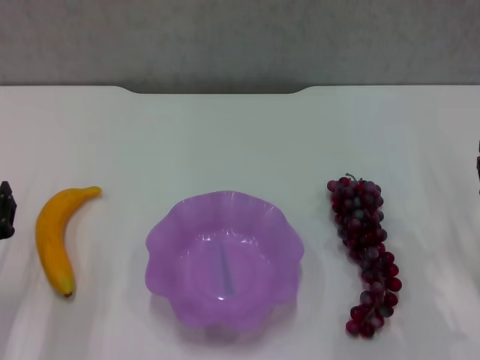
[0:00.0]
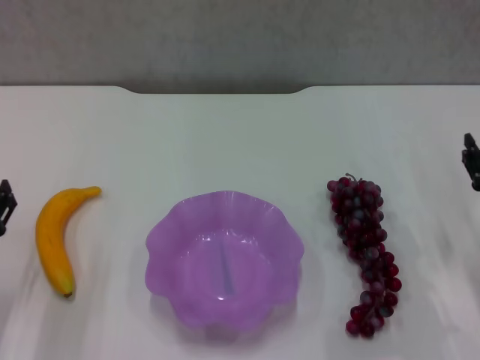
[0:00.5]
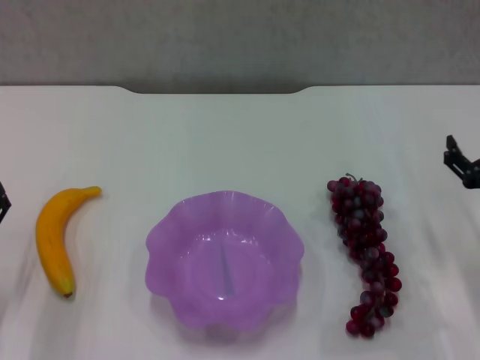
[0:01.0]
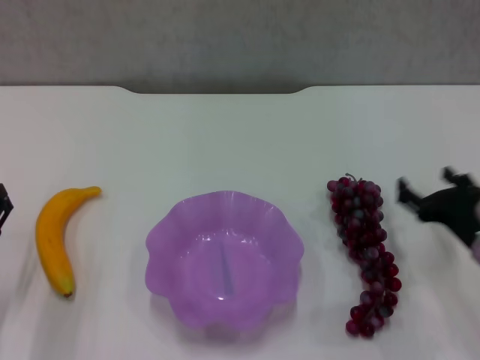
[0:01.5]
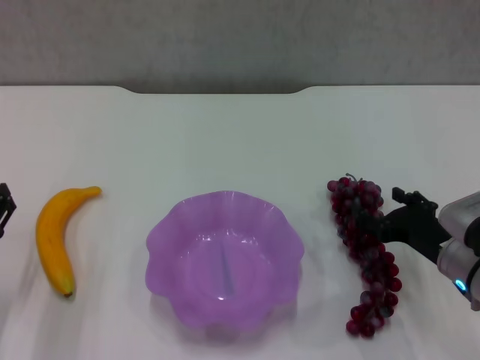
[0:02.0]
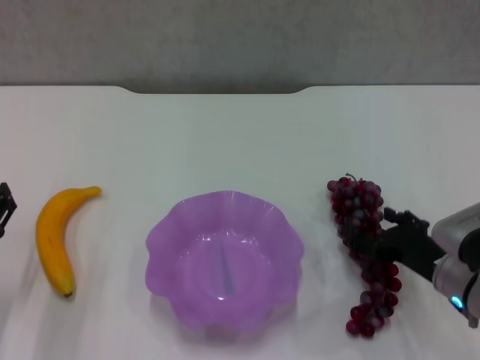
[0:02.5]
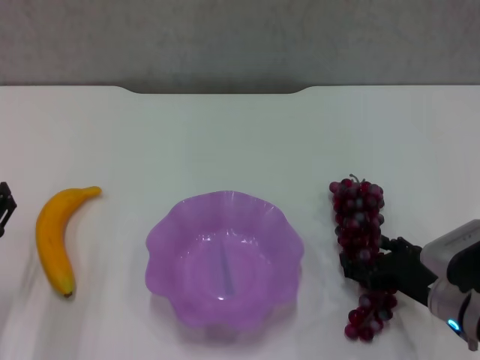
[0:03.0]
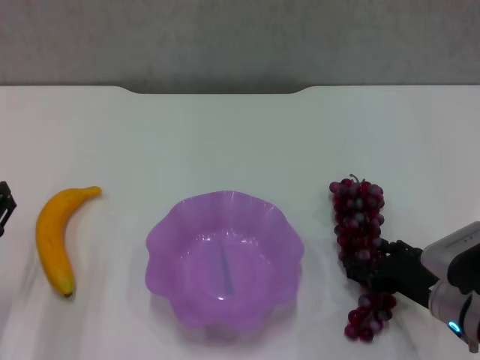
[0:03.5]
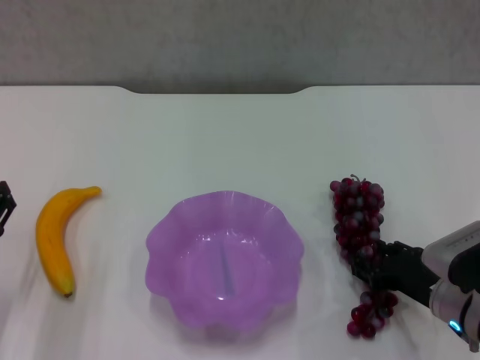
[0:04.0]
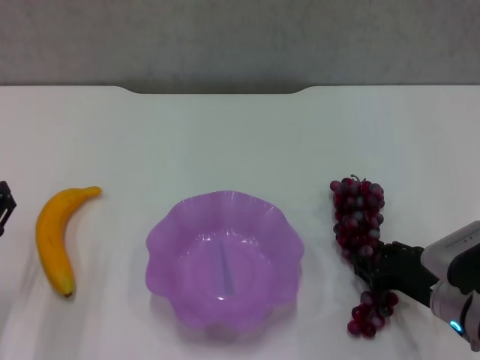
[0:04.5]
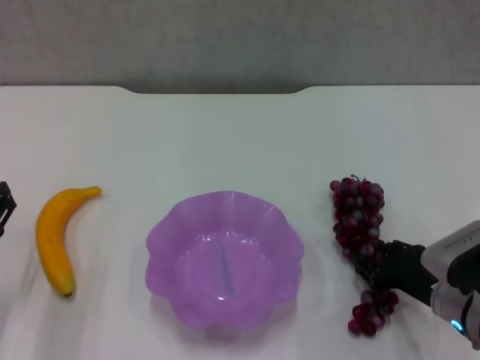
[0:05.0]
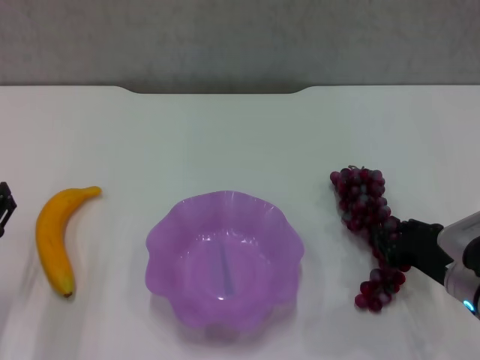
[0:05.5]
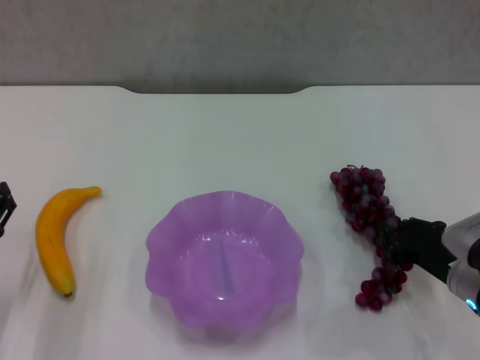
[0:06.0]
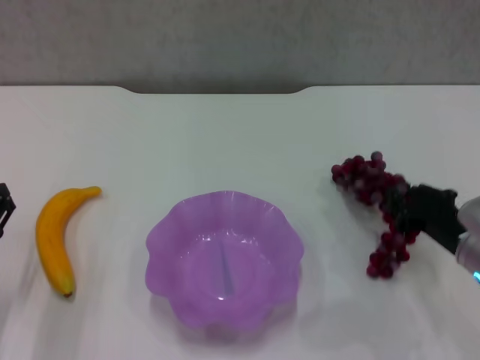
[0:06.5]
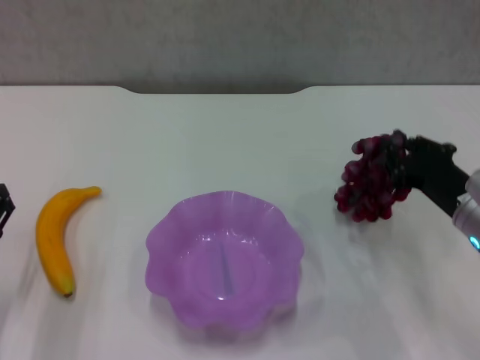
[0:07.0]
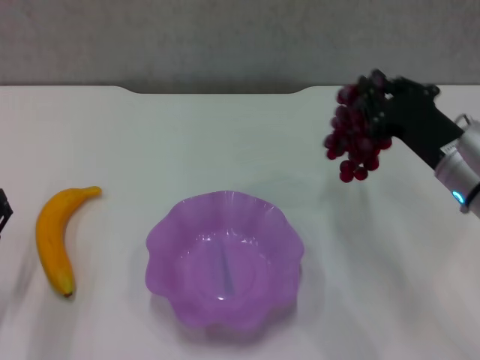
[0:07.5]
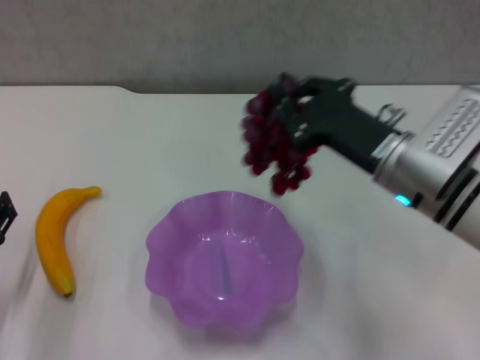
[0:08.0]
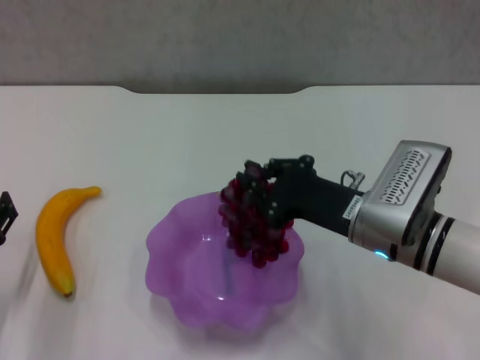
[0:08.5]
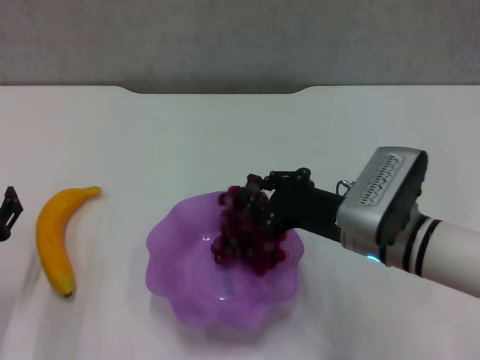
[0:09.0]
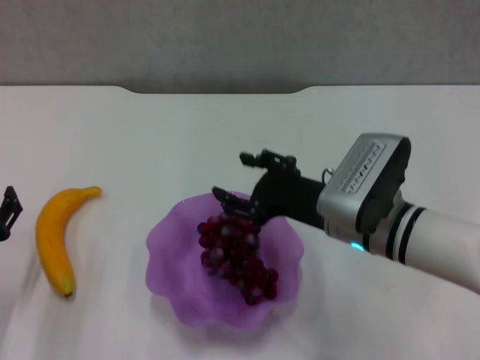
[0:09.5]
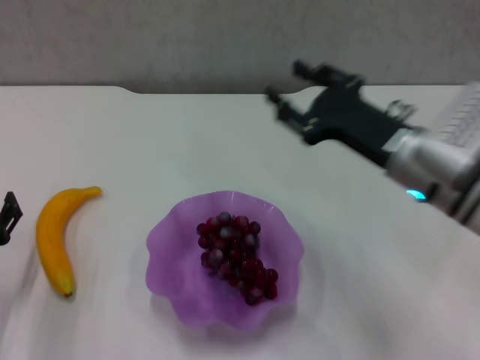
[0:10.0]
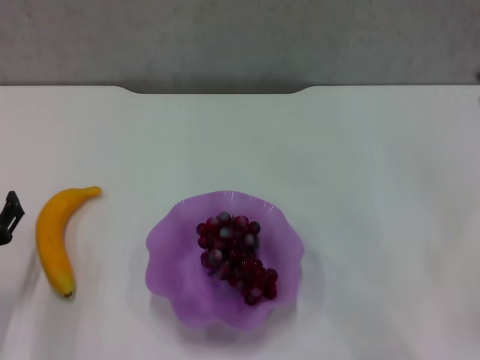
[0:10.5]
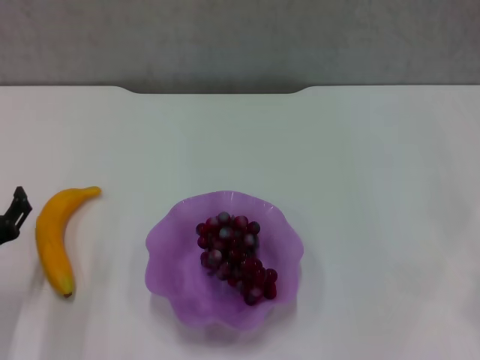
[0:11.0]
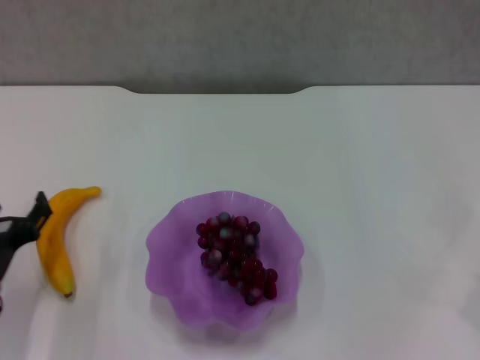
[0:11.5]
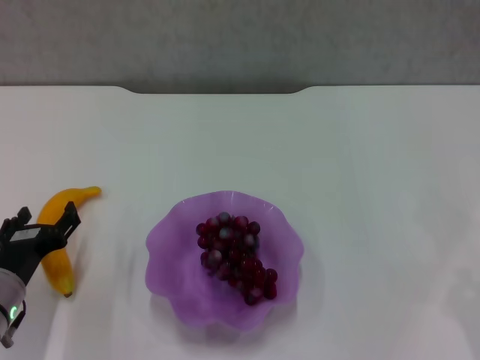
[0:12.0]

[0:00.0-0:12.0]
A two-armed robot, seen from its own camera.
Step, 0:00.0 to 0:04.5: Grasp the grape with right gripper.
Step, 0:05.0 to 0:09.5: Place the grape in the purple plate with right gripper.
0:00.0 to 0:02.0: The right gripper heads to the left, covering approximately 5 cm, and opens its fingers.
0:02.0 to 0:04.0: The grippers stay close to where they were, moving slightly.
0:04.0 to 0:06.0: The right gripper closes its fingers.
0:06.0 to 0:08.0: The right gripper is displaced upward and to the left by some 15 cm.
0:08.0 to 0:10.0: The right gripper opens its fingers.
0:10.0 to 0:12.0: The right gripper heads to the right and backward, covering approximately 25 cm, and closes up.

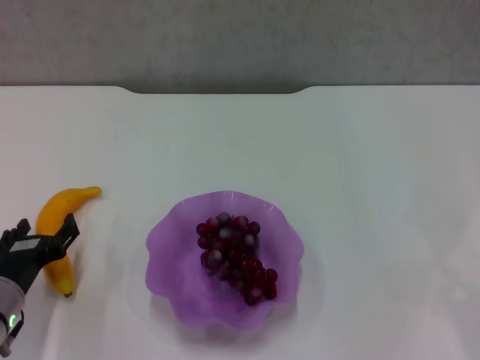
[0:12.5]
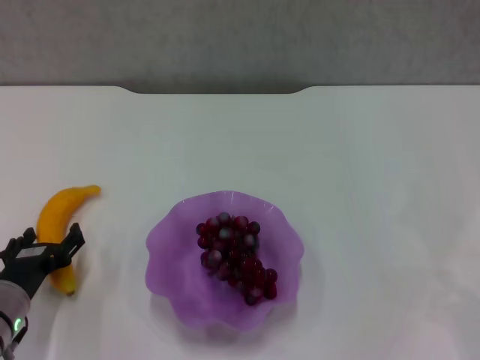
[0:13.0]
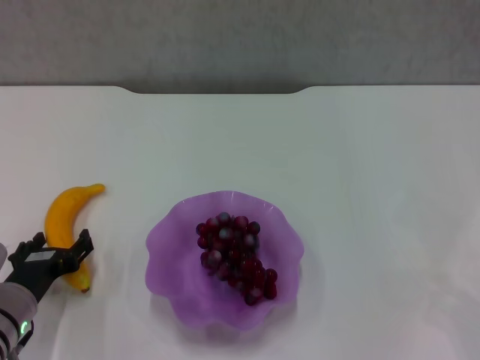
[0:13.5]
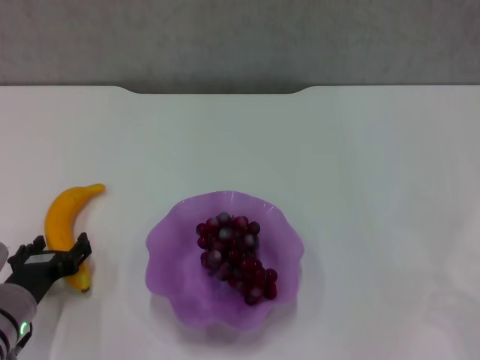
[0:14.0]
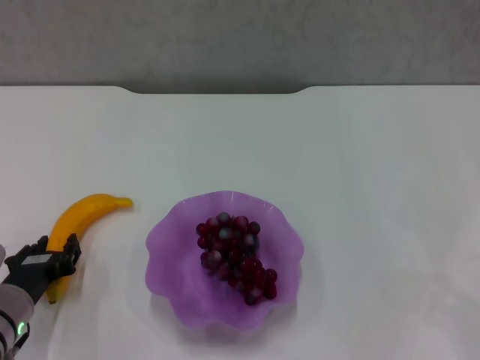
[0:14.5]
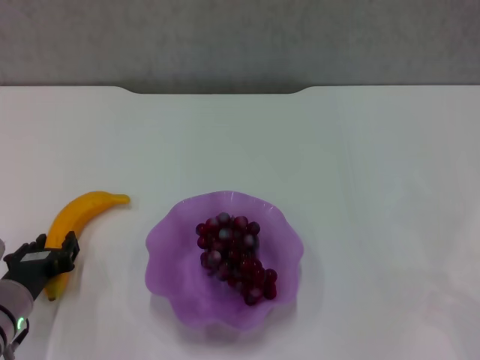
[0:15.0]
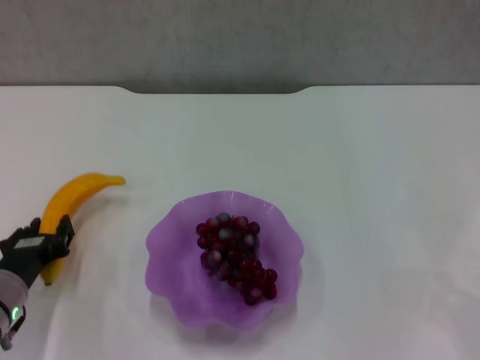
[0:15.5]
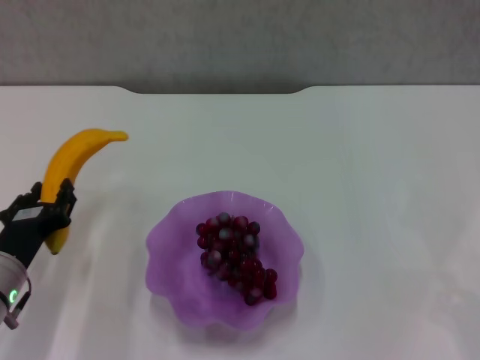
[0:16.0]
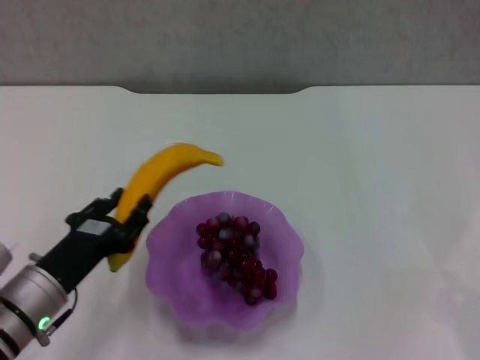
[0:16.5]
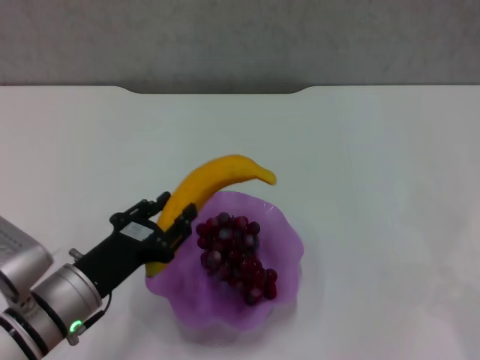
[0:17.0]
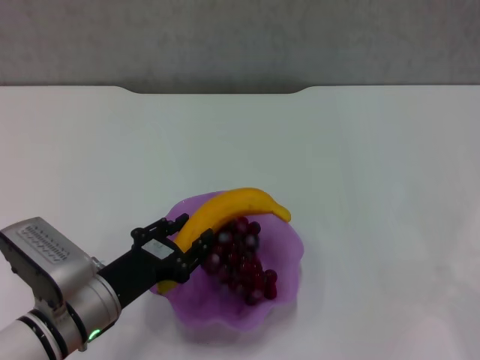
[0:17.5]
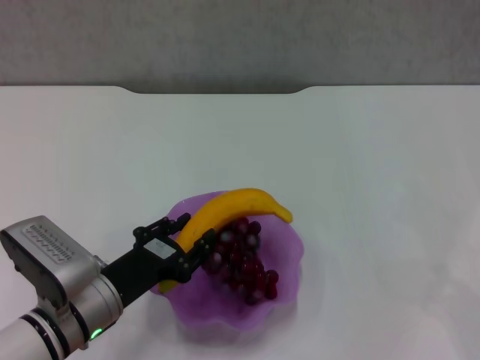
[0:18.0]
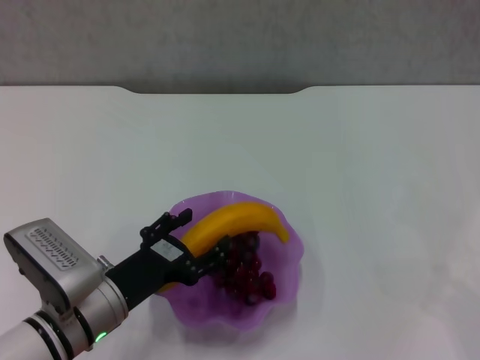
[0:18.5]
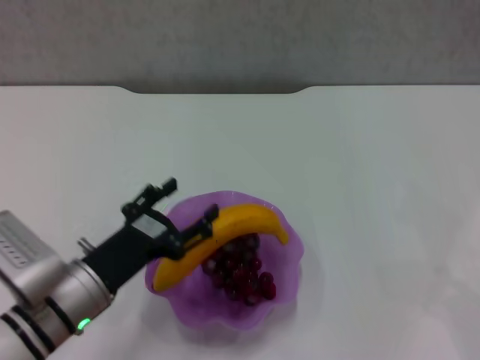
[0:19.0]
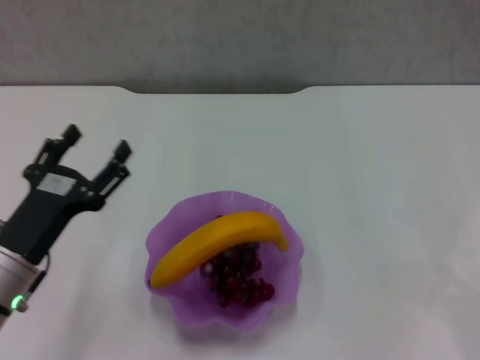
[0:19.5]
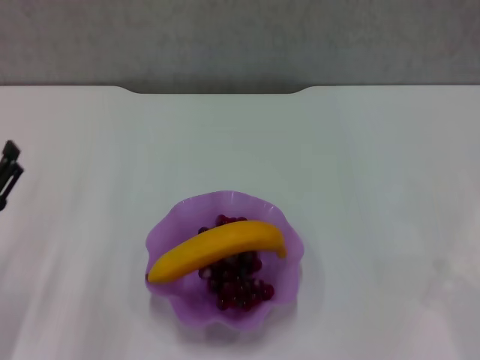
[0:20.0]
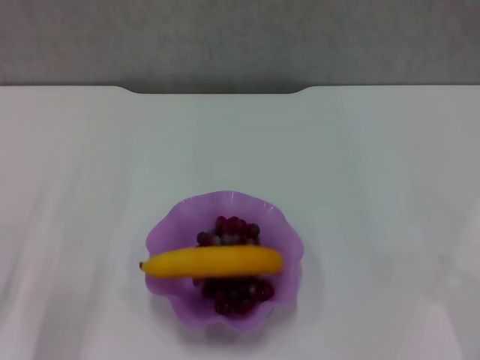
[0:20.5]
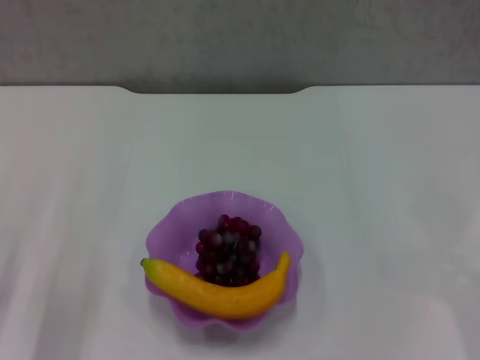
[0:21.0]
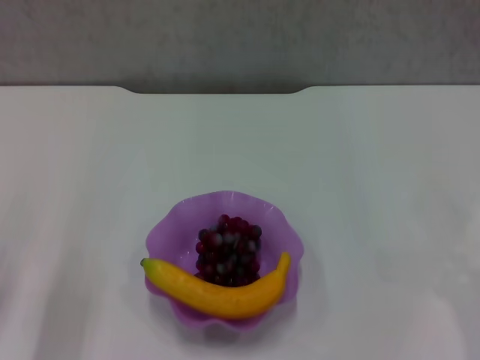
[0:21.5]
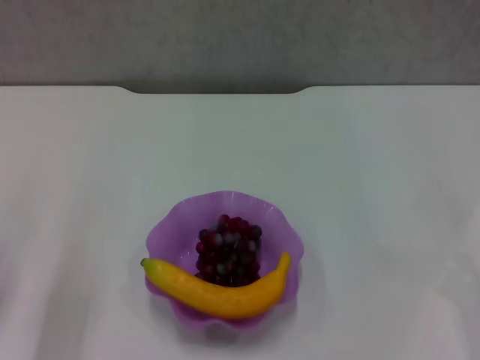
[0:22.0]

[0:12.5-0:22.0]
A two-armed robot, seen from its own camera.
Step, 0:12.5 to 0:14.5: Grasp the banana with left gripper.
Step, 0:15.0 to 0:18.5: Place the banana in the purple plate with left gripper.
0:12.5 to 0:14.5: The left gripper closes.
0:14.5 to 0:16.5: The left gripper ends up approximately 5 cm from where it was.
0:16.5 to 0:18.0: The grippers stay close to where they were, moving slightly.
0:18.0 to 0:20.0: The left gripper moves to the left, roughly 10 cm, and opens.
0:20.0 to 0:22.0: The left gripper closes up.
